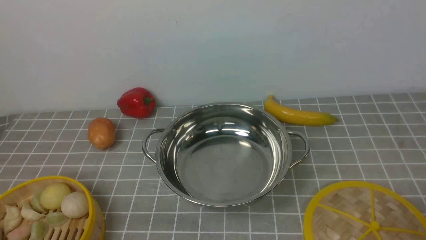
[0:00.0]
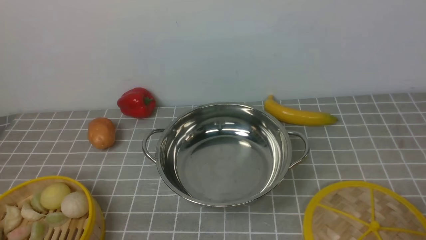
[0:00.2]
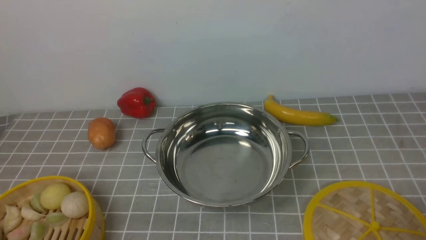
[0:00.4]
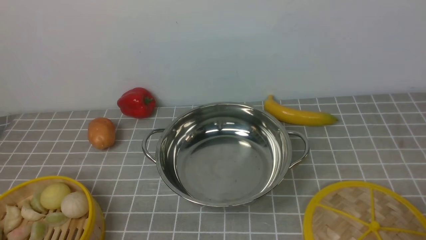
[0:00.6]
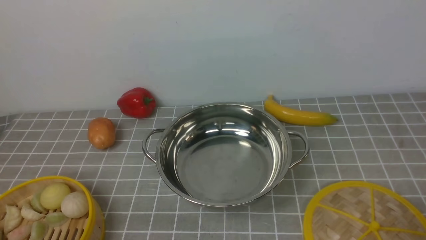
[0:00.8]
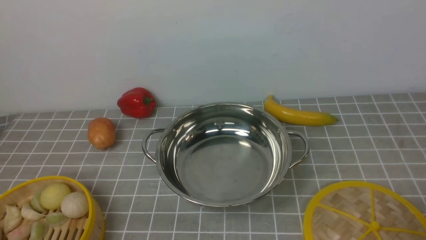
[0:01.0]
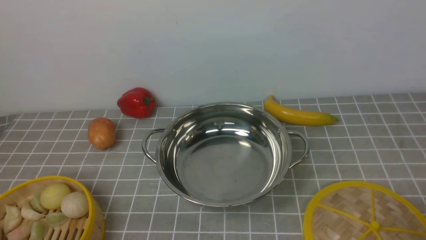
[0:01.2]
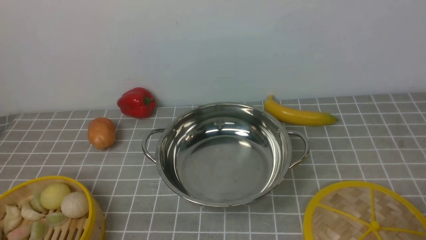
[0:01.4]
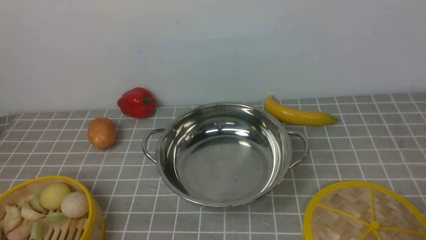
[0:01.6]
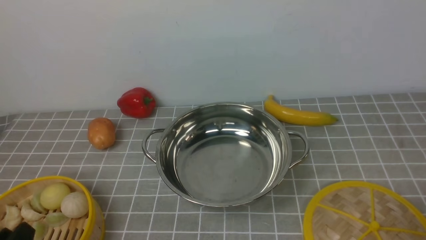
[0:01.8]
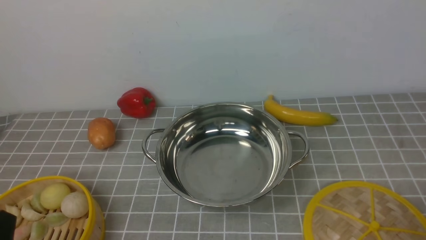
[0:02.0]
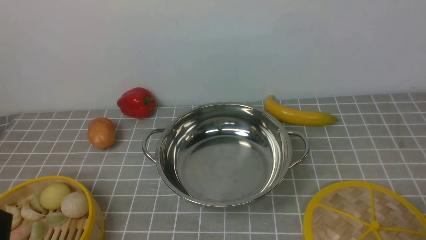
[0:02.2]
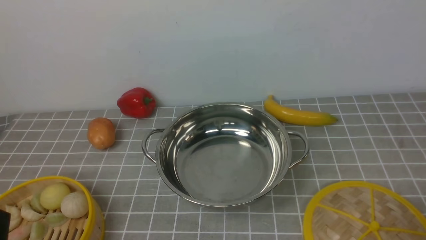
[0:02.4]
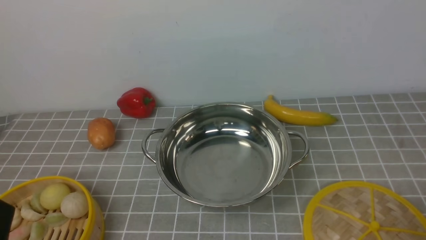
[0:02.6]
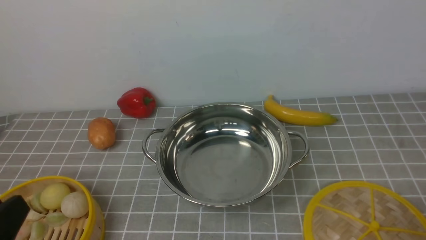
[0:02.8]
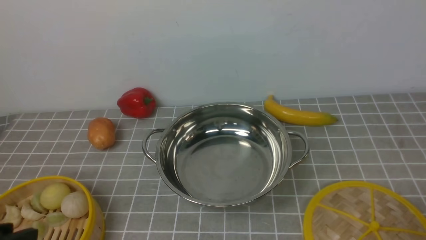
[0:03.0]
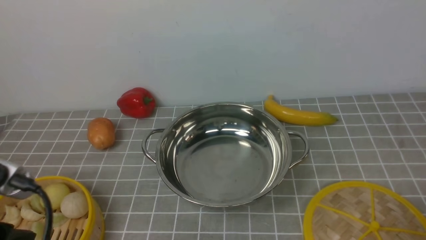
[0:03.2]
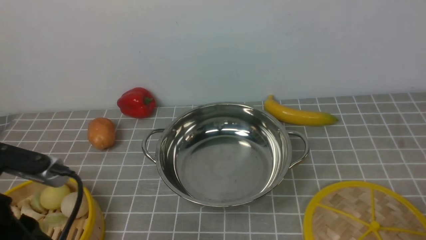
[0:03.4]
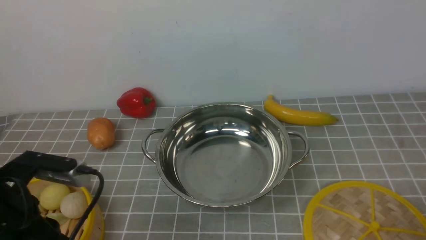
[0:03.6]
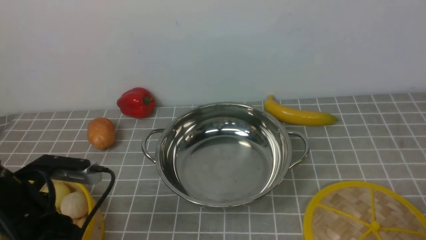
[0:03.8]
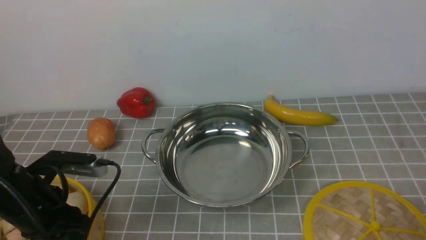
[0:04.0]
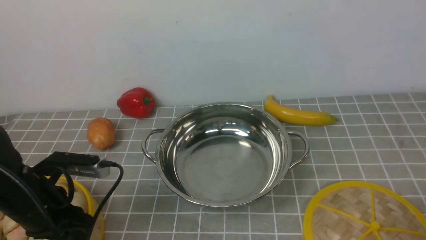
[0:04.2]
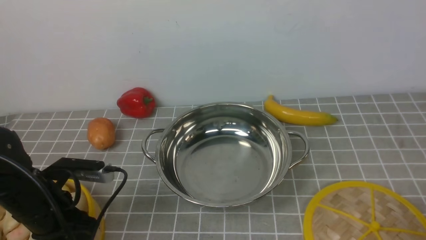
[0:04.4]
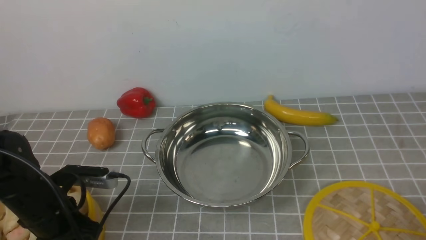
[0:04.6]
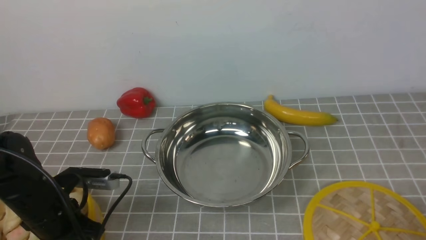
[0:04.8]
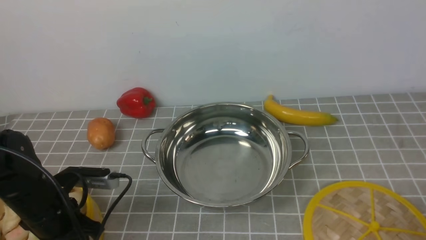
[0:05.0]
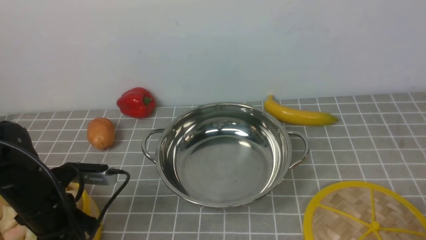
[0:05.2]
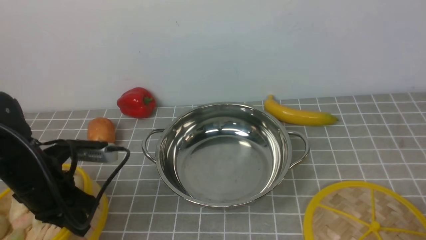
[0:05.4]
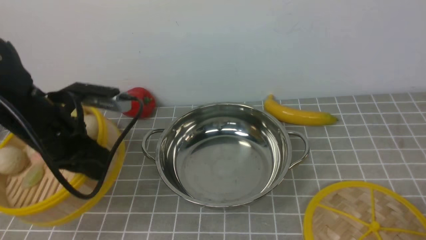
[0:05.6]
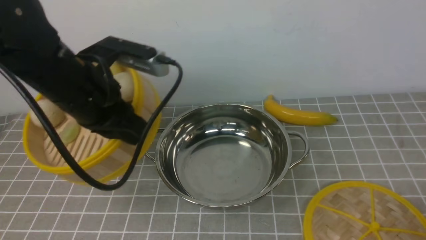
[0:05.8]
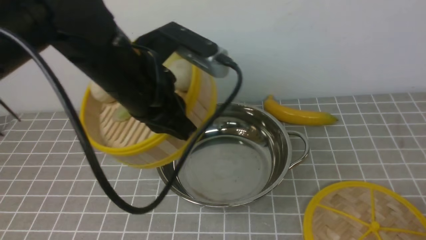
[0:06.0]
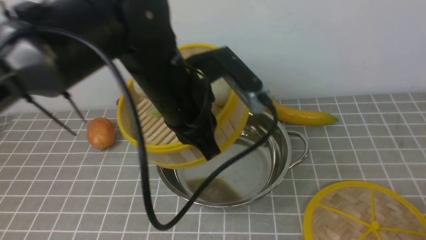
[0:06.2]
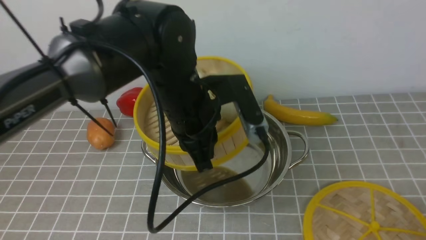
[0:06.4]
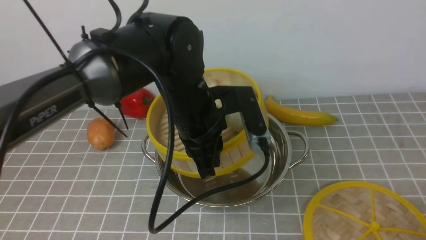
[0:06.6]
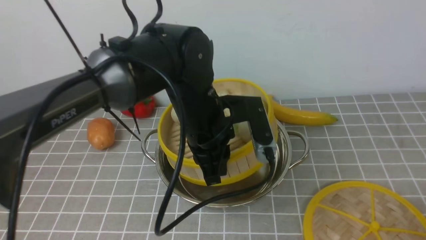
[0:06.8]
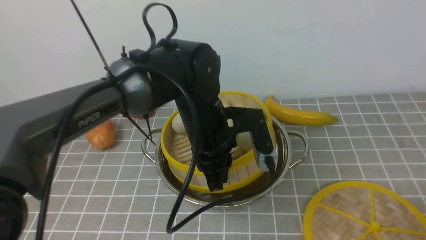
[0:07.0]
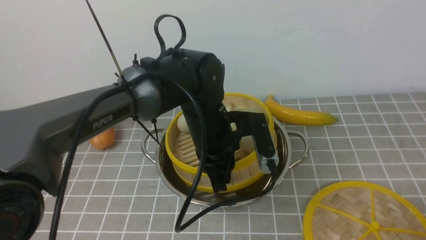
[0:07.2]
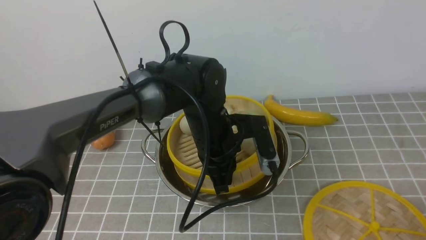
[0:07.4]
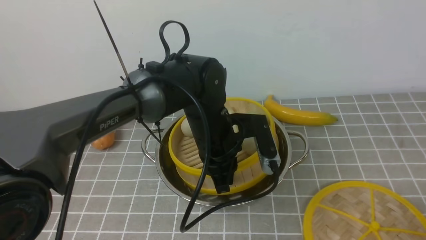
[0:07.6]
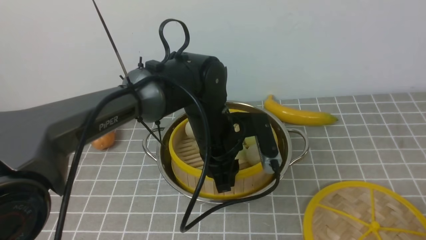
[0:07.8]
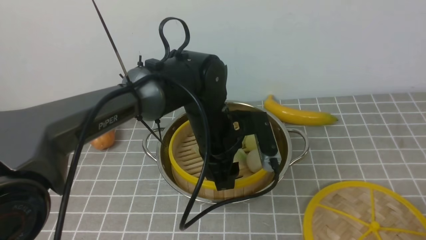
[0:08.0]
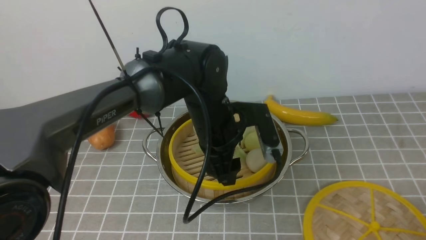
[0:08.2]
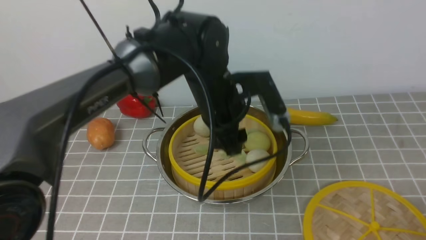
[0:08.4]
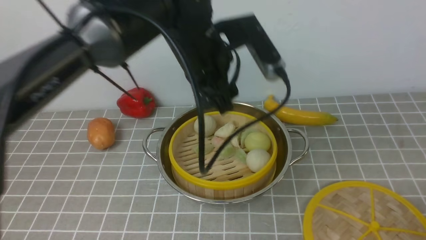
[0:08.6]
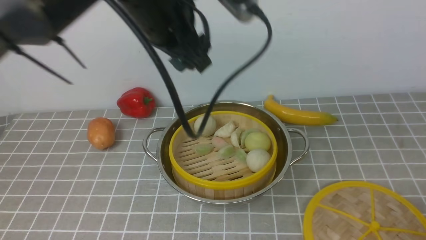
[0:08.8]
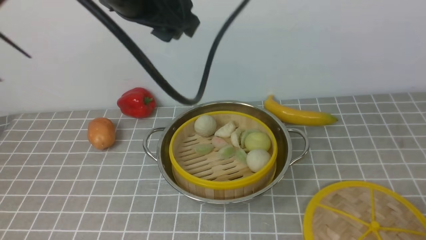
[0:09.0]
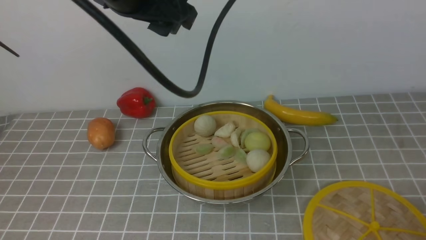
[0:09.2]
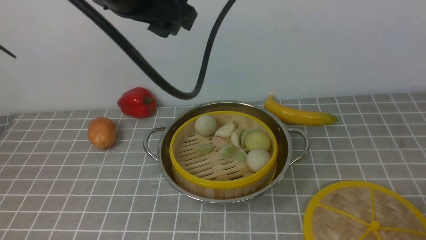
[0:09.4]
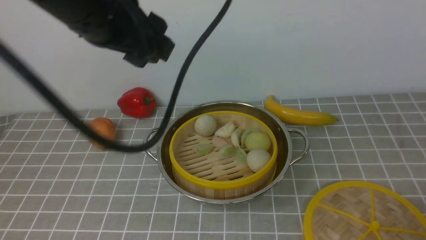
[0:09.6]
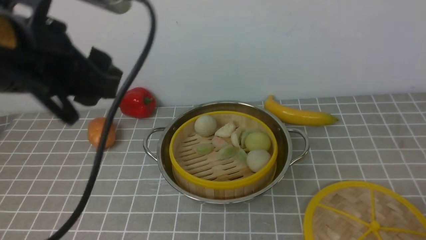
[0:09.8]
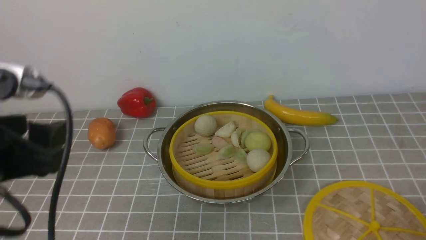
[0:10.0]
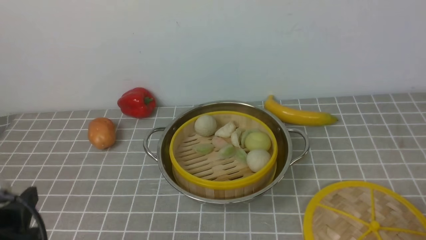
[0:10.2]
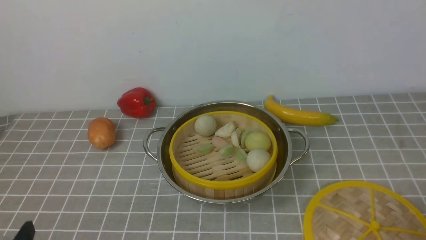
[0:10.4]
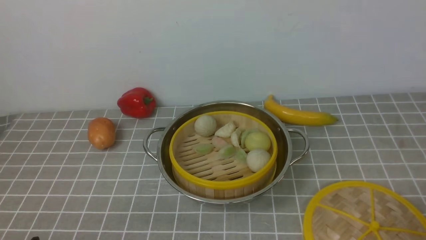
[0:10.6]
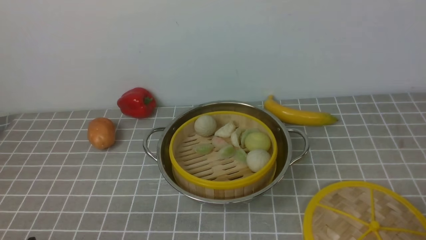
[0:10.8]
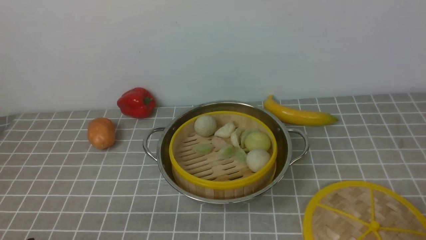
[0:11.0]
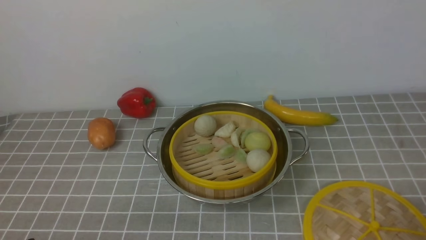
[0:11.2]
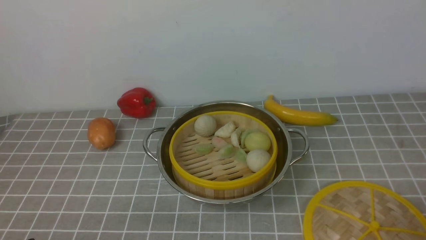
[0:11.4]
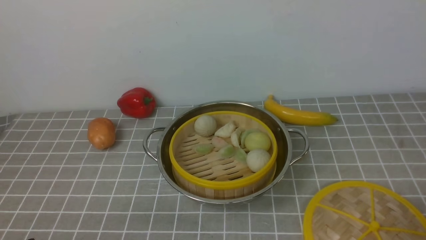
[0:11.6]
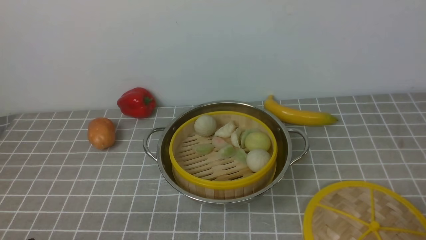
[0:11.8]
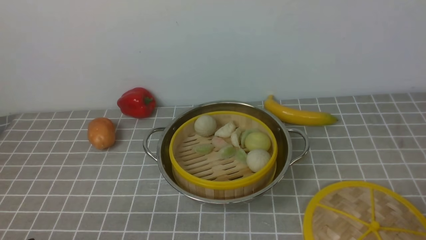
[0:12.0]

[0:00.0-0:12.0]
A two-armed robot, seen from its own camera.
Task of the whole recording: place the steamer in the pot on the grey tablecloth, and put the lid on the steamer.
Step, 0:00.0 to 0:05.2: use the left arm to lift the steamer closest to it.
Step, 0:05.6 to 0:08.2: use the left arm to put the steamer into the iron steamer pot in the middle.
0:03.0 to 0:04.4: The left gripper heads forward and downward, covering some 20 cm.
0:04.4 to 0:06.0: The left gripper travels upward and to the right by some 25 cm, and closes its fingers.
0:06.0 to 0:07.6: The left gripper travels downward and to the right by approximately 15 cm.
0:07.6 to 0:09.0: The left gripper travels upward by some 25 cm, and opens.
0:09.0 to 0:10.4: The left gripper is displaced backward, downward and to the left by about 40 cm.

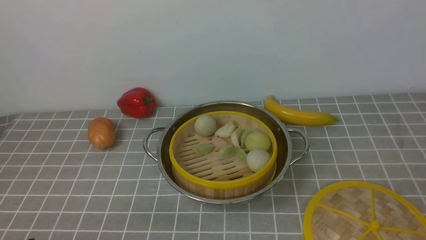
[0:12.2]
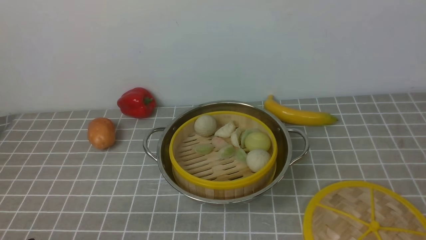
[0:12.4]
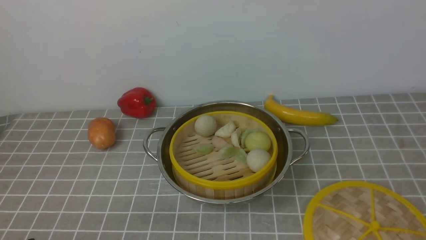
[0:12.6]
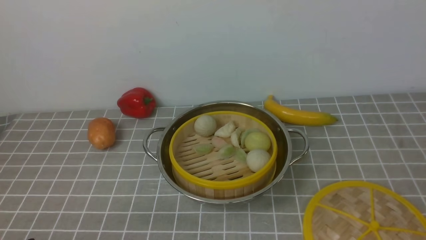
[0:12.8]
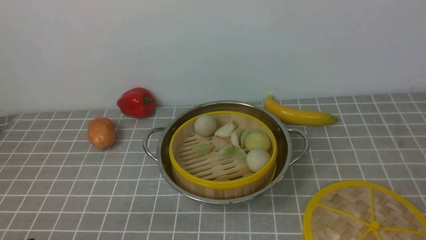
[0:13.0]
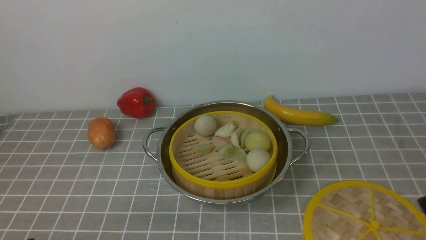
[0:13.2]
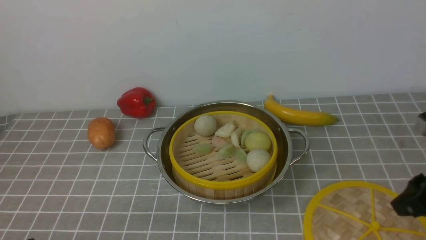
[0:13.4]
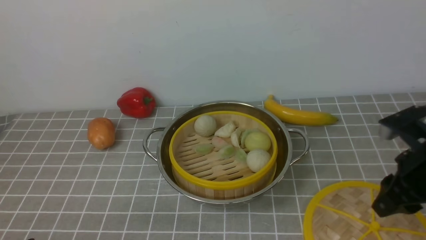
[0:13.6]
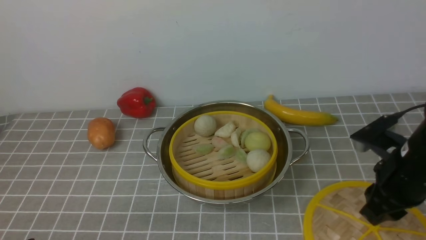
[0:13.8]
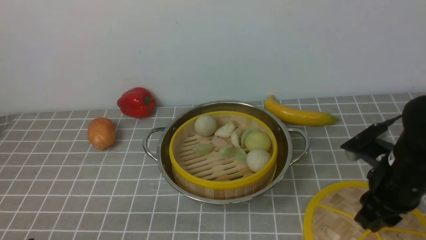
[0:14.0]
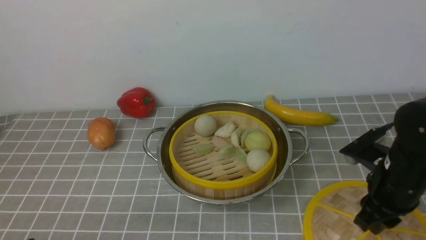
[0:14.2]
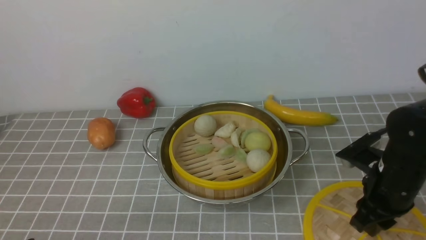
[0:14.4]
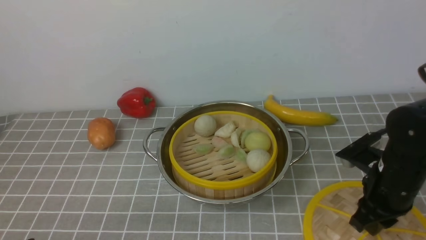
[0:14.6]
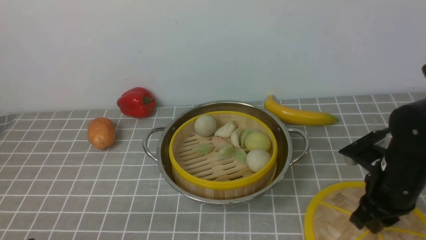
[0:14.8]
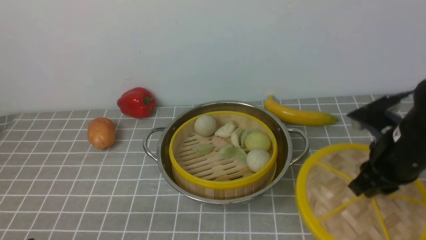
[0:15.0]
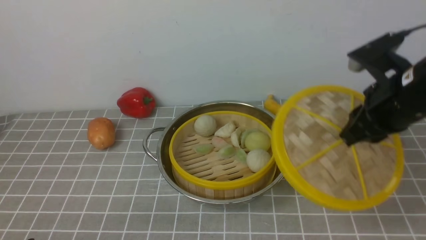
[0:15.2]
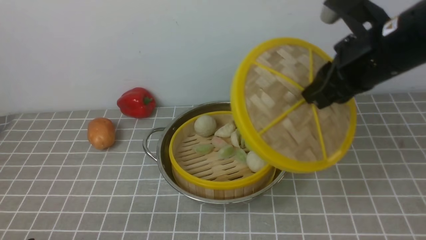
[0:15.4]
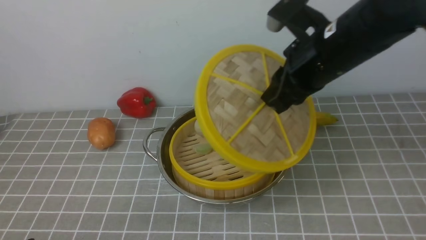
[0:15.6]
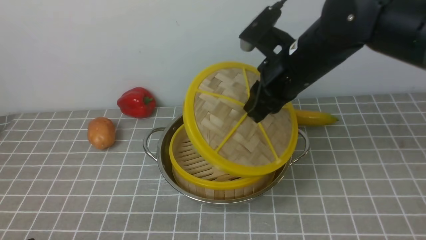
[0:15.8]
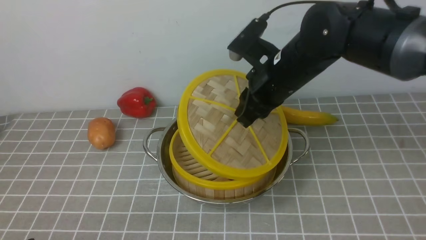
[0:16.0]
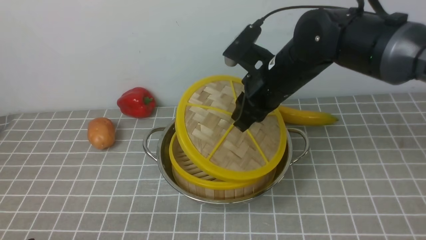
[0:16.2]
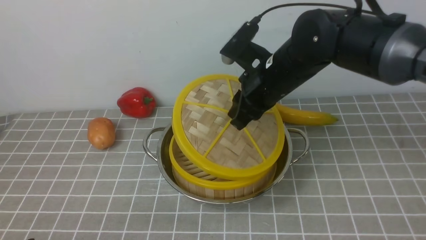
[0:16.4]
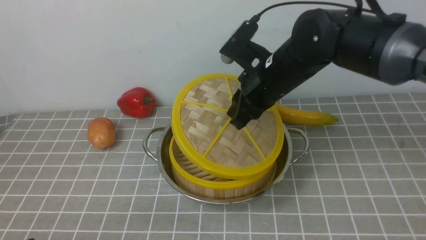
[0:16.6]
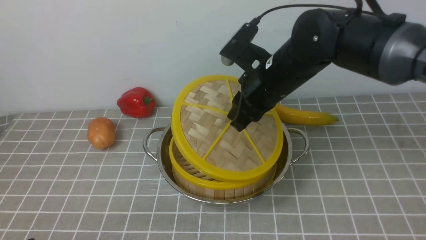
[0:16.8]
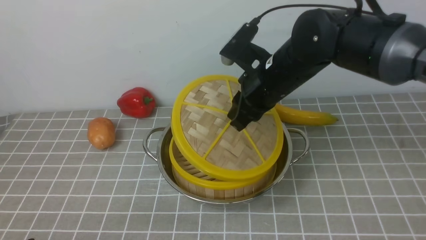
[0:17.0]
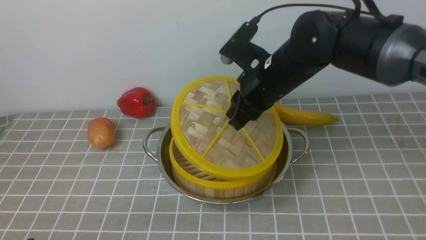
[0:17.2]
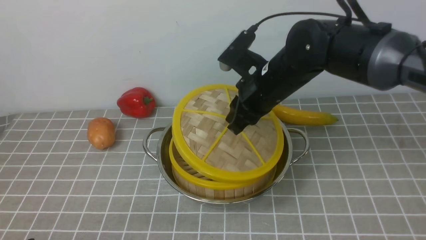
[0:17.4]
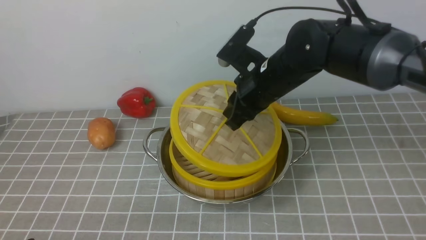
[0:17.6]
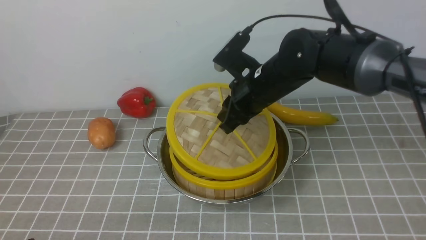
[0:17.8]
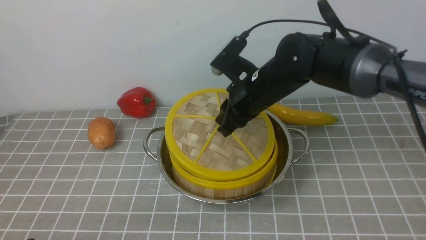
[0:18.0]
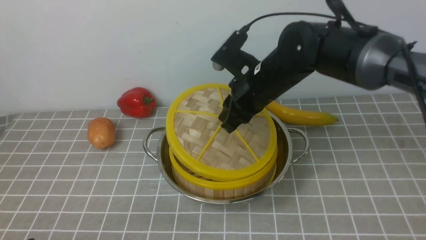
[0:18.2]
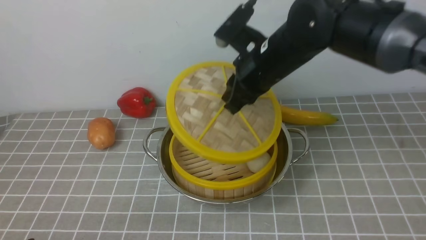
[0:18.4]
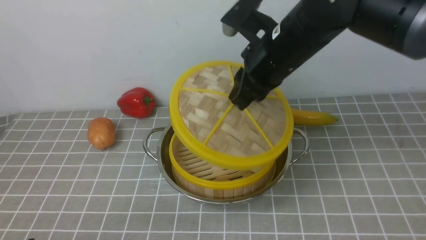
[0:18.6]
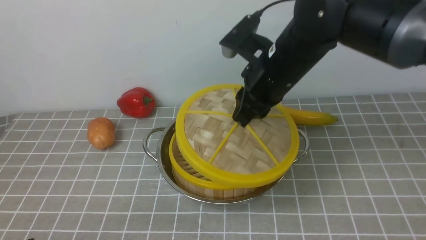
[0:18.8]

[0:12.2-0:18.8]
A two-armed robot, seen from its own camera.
Task of the whole recording: place the steamer in the pot on the grey tablecloth, and put the lid on the steamer.
Step, 0:12.2 to 0:14.8: use the right arm to lift the lid of the steamer.
0:12.2 to 0:13.8: The right gripper heads forward, covering some 20 cm.
0:13.8 to 0:15.4: The right gripper goes roughly 15 cm upward, to the left and forward, and closes.
0:15.4 to 0:17.2: The right gripper shifts some 15 cm to the left, downward and forward.
0:17.2 to 0:18.8: There are only small adjustments of the grippers.
